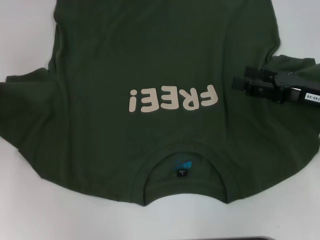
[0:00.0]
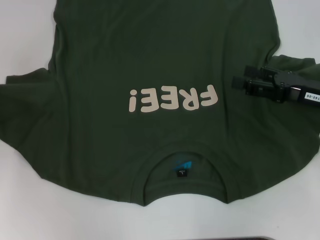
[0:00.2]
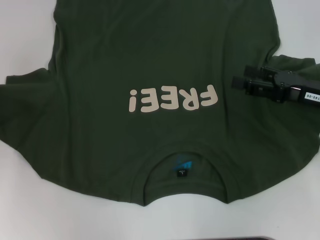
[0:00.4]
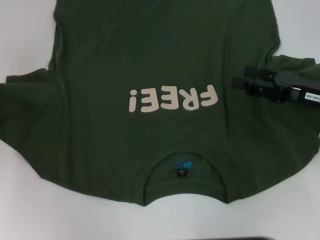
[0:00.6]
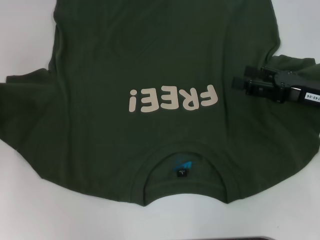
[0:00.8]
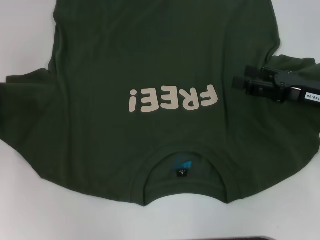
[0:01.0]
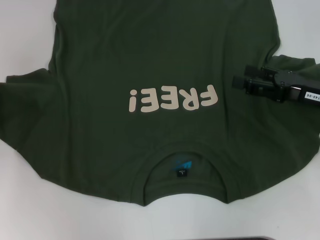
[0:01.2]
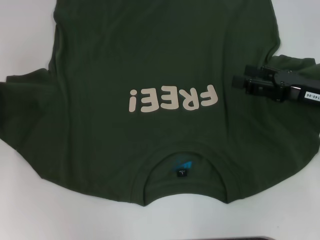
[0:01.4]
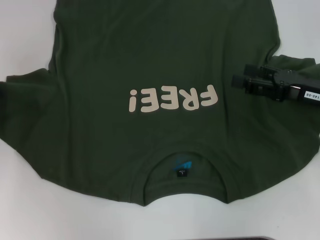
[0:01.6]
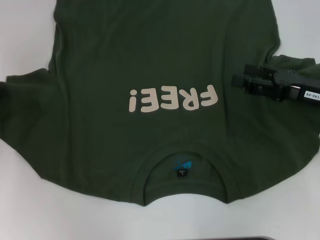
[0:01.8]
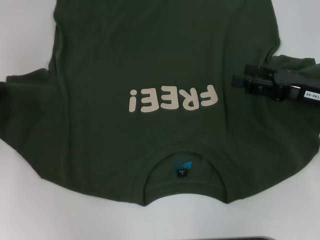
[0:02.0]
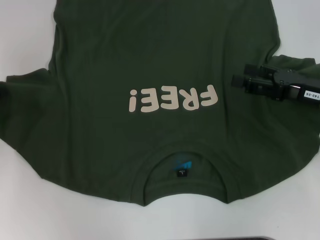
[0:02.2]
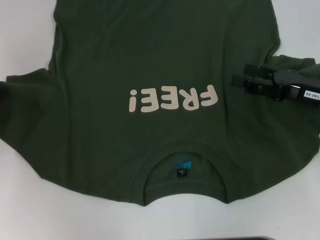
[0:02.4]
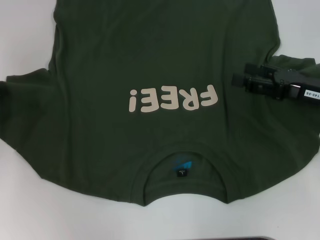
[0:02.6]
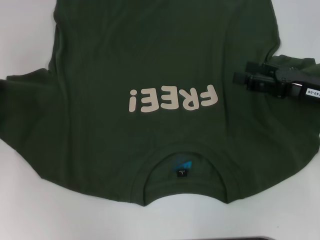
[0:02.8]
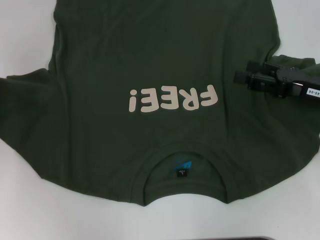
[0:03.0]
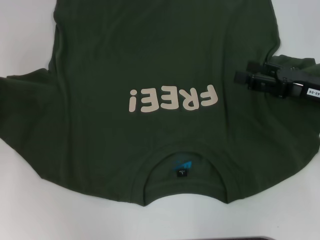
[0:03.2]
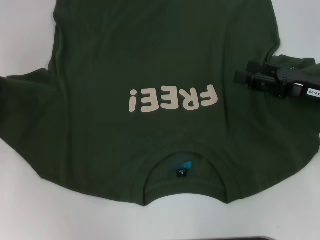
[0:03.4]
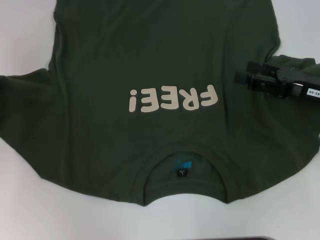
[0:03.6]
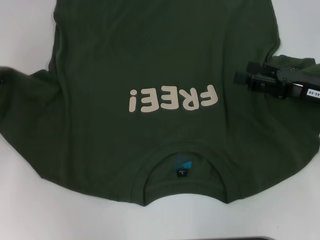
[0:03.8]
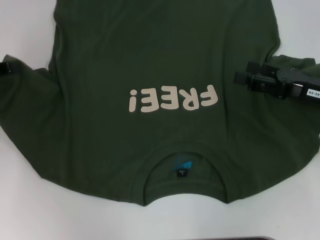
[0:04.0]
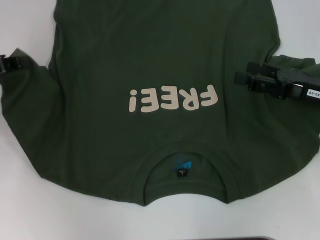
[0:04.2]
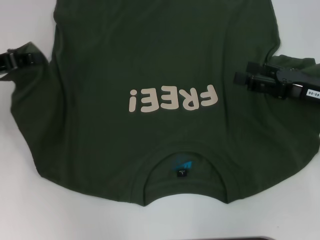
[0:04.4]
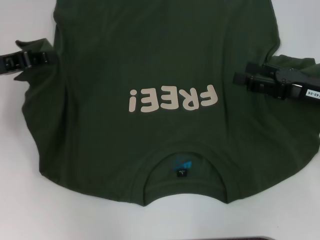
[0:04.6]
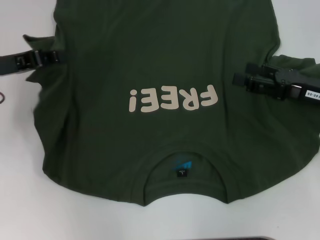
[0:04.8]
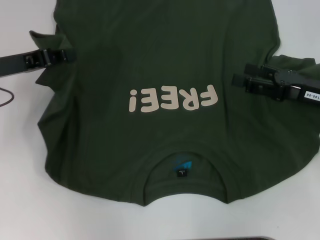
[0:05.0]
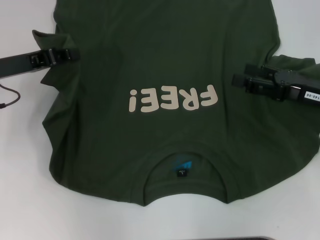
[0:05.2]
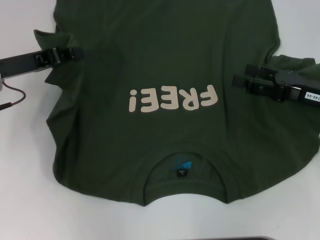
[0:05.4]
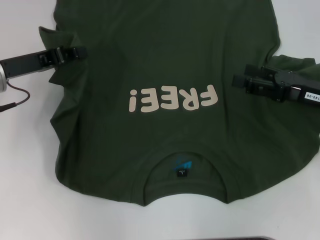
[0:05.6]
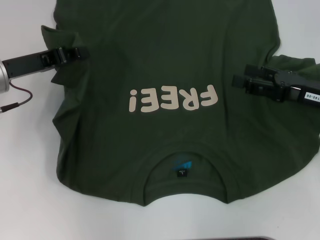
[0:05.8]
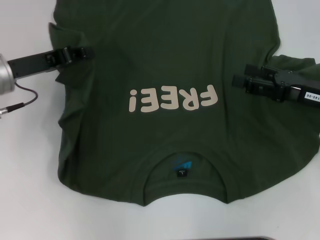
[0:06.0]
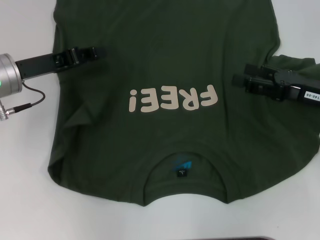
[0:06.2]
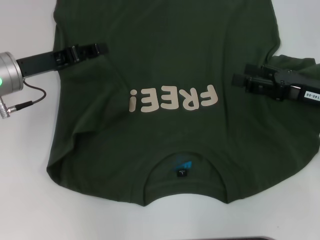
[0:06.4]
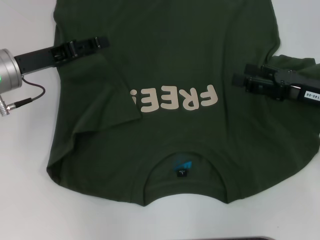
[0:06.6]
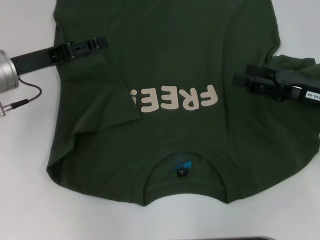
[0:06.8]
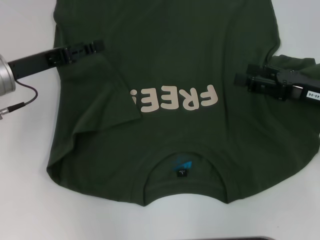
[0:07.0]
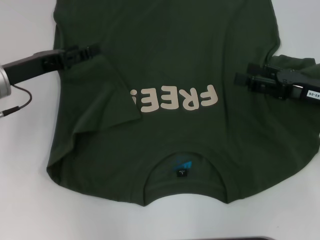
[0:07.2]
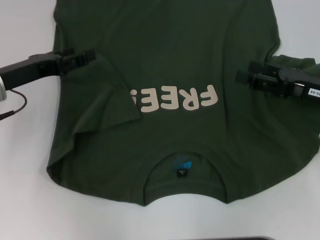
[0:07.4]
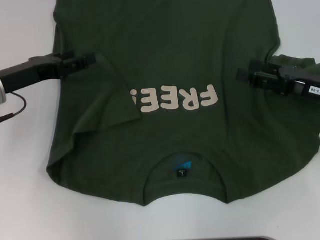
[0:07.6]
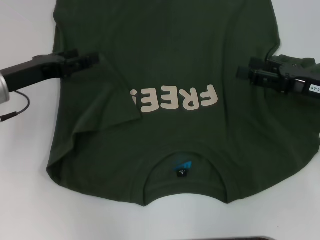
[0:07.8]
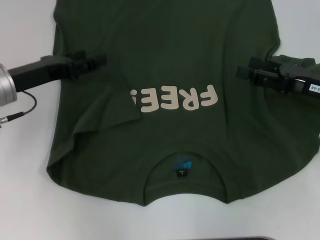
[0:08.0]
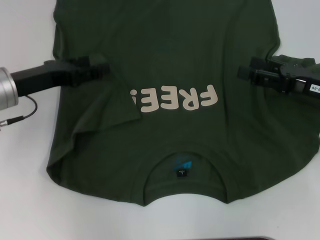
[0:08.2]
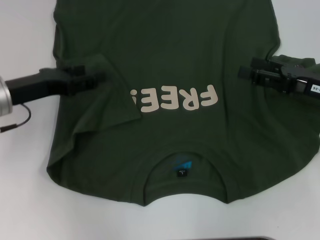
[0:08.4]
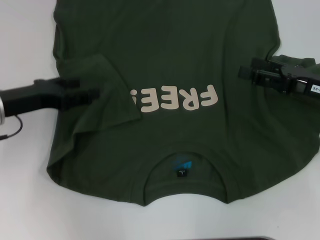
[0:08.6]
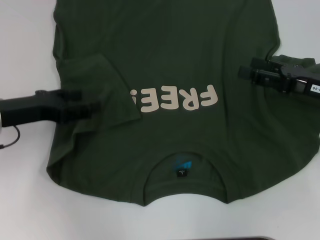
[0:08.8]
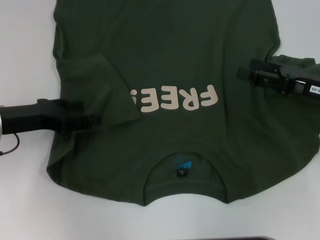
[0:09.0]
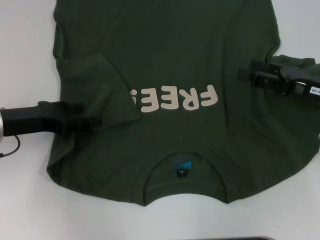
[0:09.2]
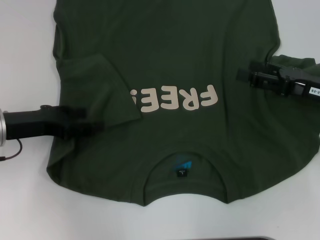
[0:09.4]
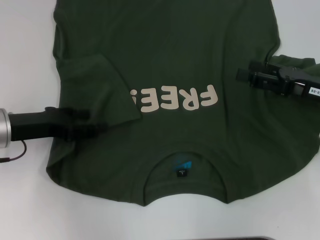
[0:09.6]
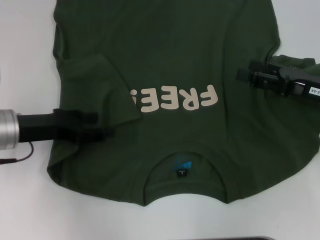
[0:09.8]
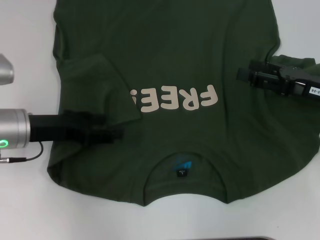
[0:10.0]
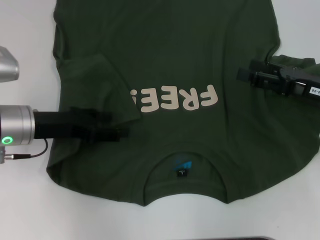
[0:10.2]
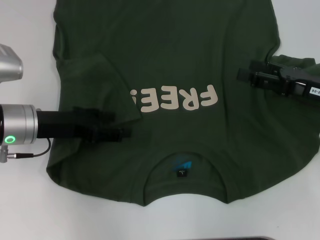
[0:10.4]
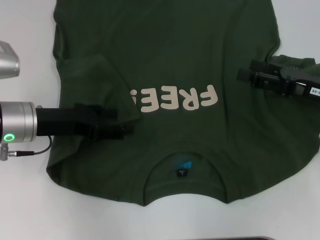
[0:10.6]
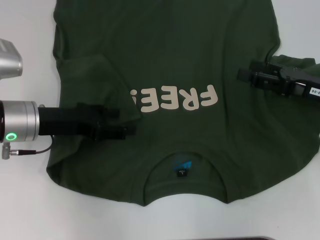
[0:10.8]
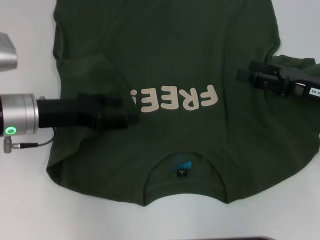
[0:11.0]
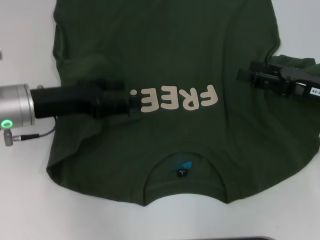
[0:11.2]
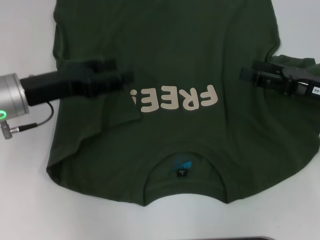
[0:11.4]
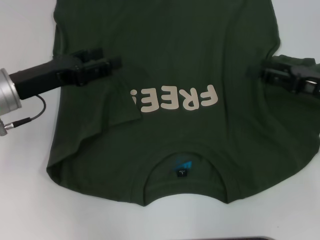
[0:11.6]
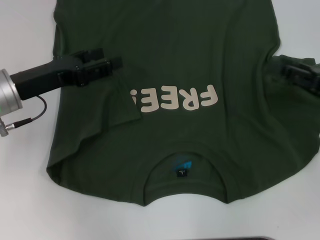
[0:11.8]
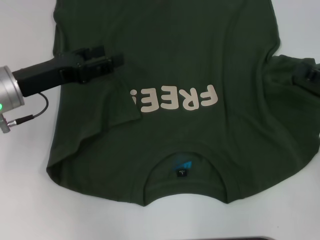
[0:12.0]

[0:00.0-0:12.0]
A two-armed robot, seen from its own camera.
Step, 0:00.0 to 0:06.4: Fold the bottom left sleeve with your left hand.
0:00.0 to 0:03.0: Both grippers stay put.
0:03.0 to 0:04.4: The left gripper heads to the right, covering about 5 cm.
0:04.4 to 0:06.0: The left gripper heads to the right, covering about 5 cm.
0:06.0 to 0:07.6: The left gripper opens up.
0:07.6 to 0:09.0: There are only small adjustments of the grippers.
0:09.0 to 0:10.4: The grippers make only small movements.
0:10.4 to 0:12.0: The right gripper heads to the right, covering roughly 5 cm.

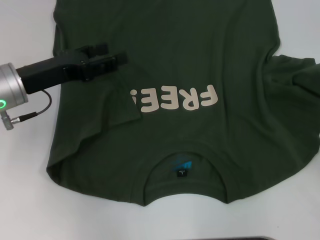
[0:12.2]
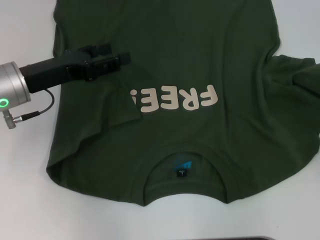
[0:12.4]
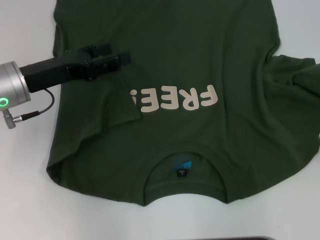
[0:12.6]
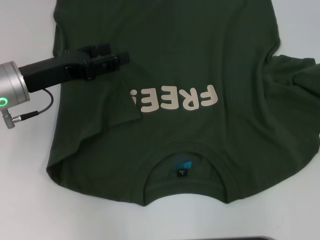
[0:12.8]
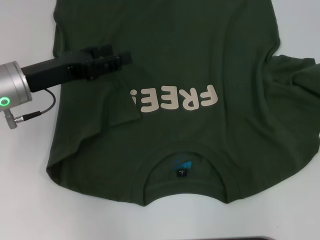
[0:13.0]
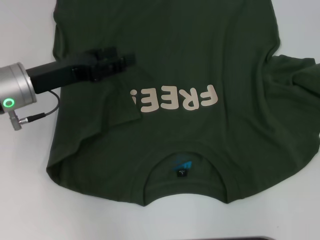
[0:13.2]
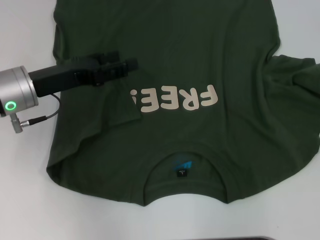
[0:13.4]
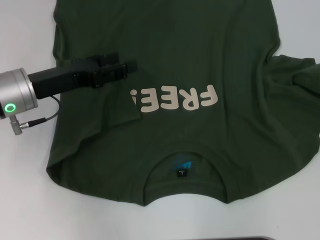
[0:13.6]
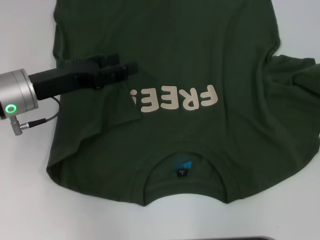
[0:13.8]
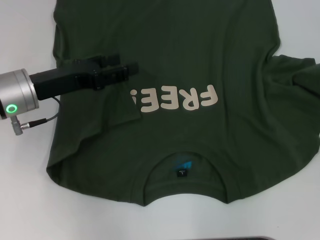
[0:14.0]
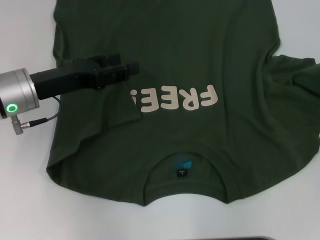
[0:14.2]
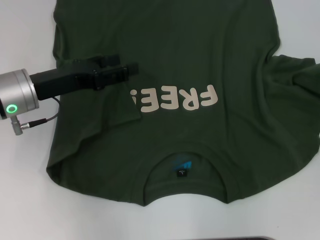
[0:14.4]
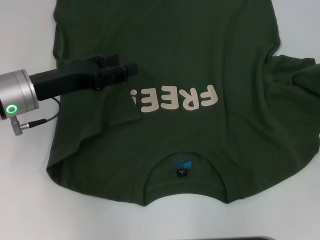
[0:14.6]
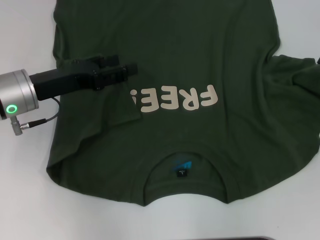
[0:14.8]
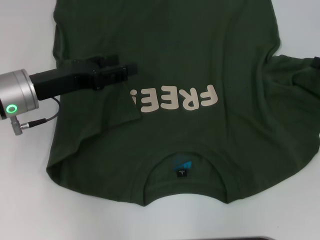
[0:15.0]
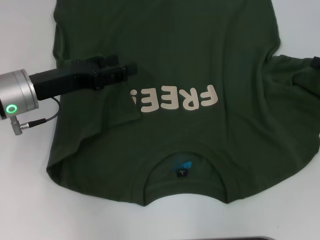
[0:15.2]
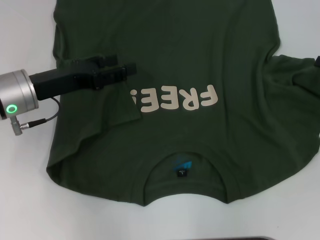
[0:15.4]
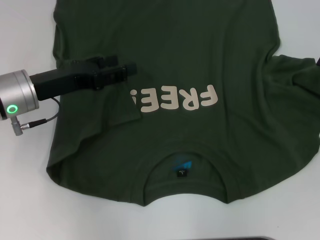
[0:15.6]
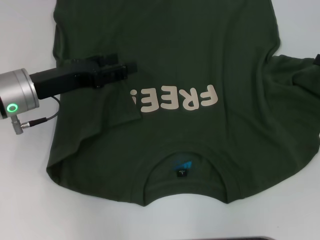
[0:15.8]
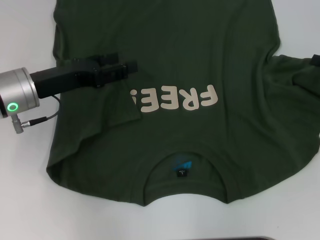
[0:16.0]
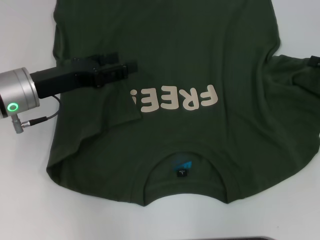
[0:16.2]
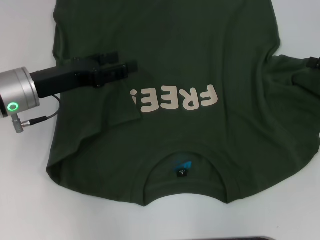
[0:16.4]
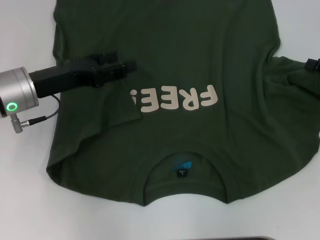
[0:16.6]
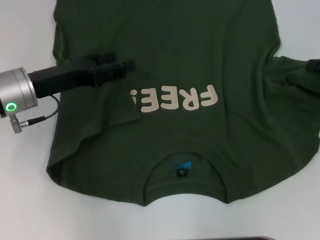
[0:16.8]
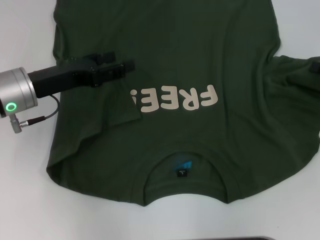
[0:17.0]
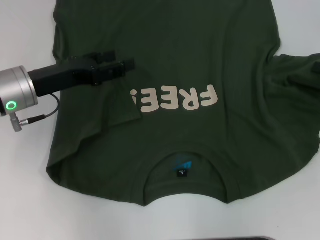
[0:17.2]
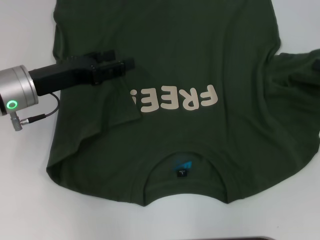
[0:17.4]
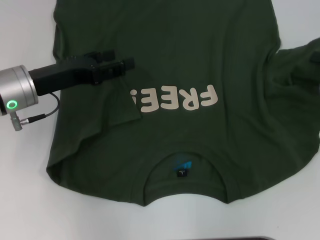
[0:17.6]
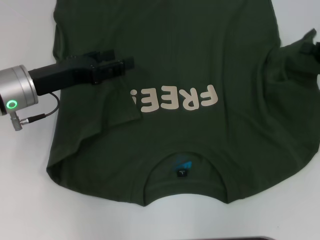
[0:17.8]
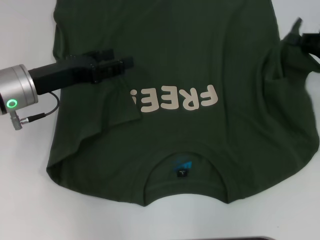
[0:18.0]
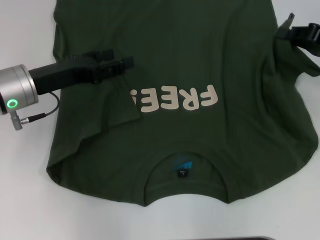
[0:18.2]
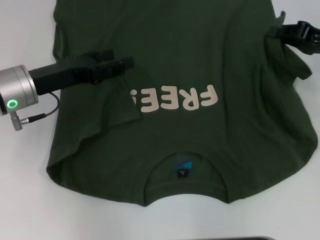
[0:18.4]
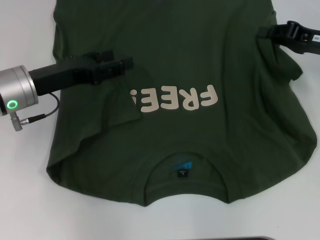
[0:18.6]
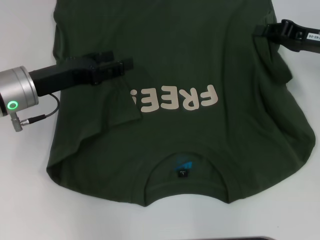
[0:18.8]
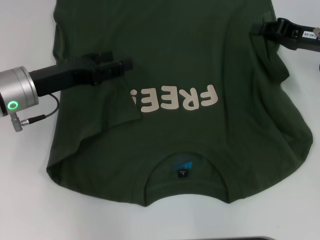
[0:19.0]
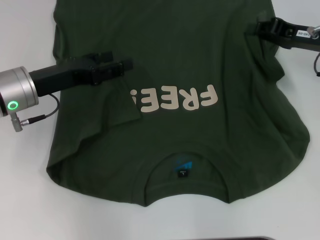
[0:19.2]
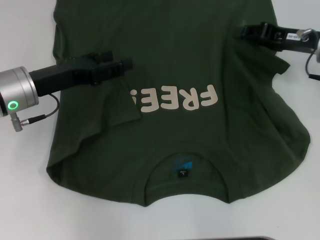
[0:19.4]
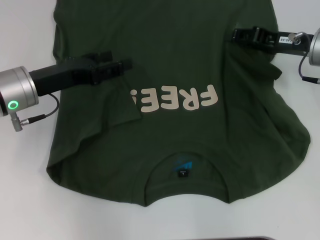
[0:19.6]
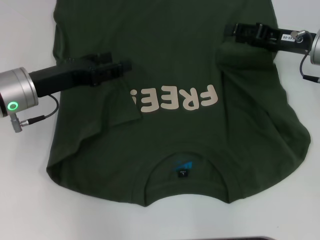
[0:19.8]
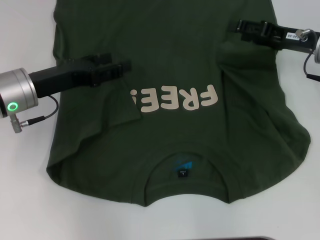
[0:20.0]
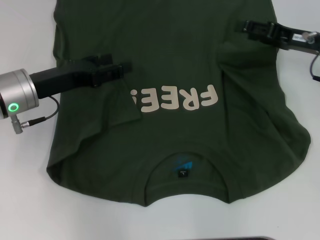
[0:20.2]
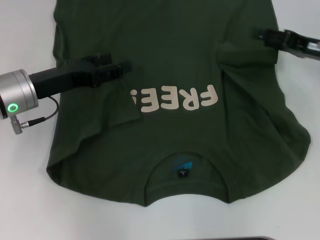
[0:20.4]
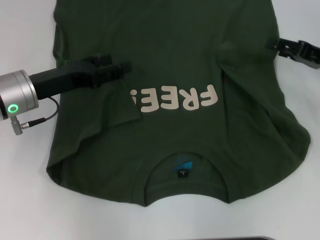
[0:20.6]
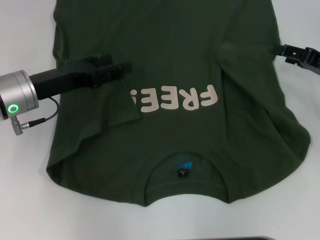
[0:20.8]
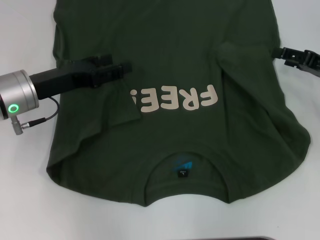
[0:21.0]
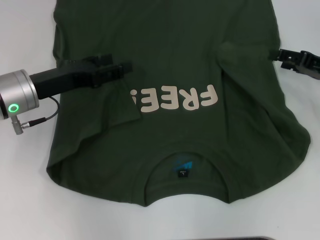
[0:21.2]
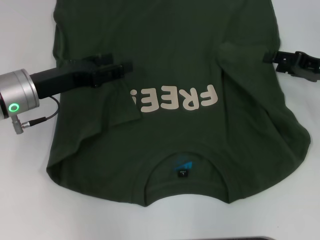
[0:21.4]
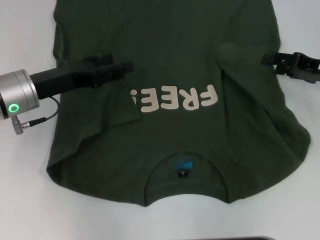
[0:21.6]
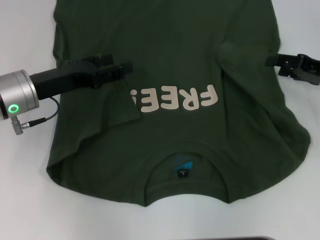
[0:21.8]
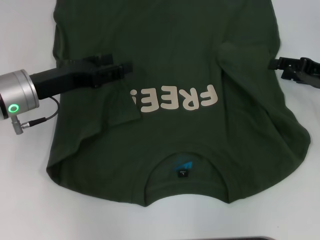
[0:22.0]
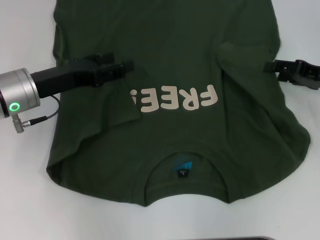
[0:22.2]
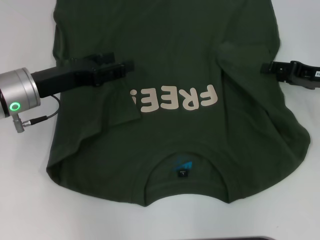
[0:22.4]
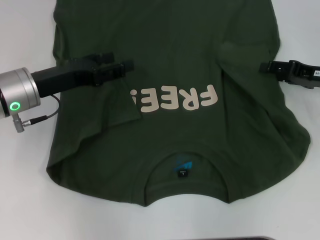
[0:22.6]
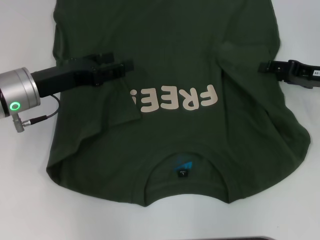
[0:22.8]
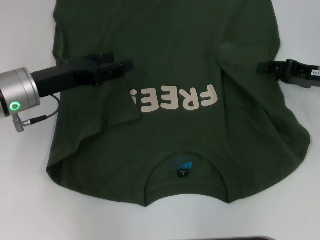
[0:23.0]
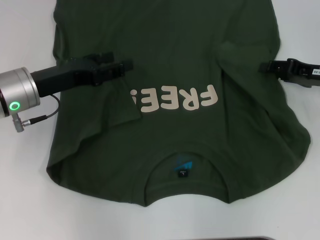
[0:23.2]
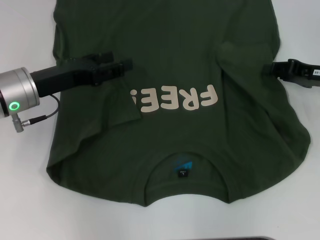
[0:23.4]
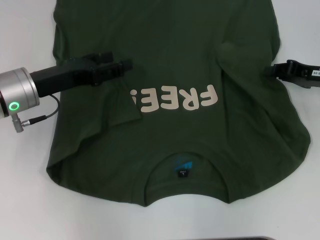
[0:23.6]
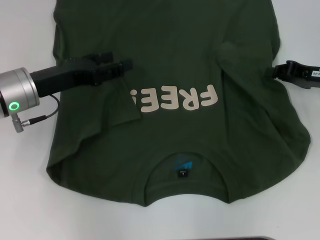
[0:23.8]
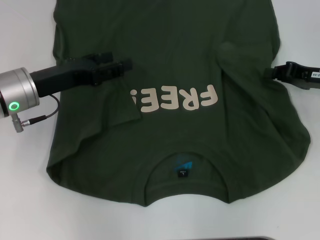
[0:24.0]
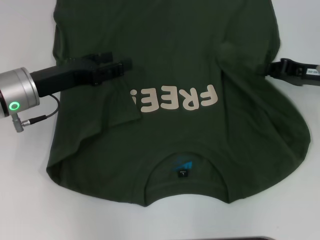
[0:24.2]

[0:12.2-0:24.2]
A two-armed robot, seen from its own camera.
0:15.2 to 0:16.6: Both grippers stay put.
0:16.6 to 0:18.2: The right gripper shifts by about 5 cm, and closes.
0:18.2 to 0:19.8: The right gripper heads to the left, covering about 5 cm, and opens.
0:19.8 to 0:21.2: The right gripper goes some 5 cm to the right.
0:21.2 to 0:22.6: There are only small adjustments of the grippers.
0:22.6 to 0:24.2: The right gripper closes.
